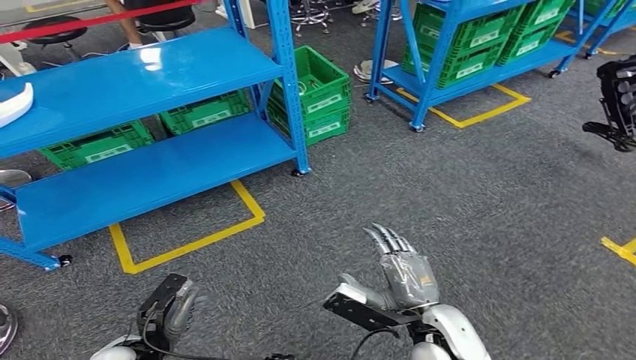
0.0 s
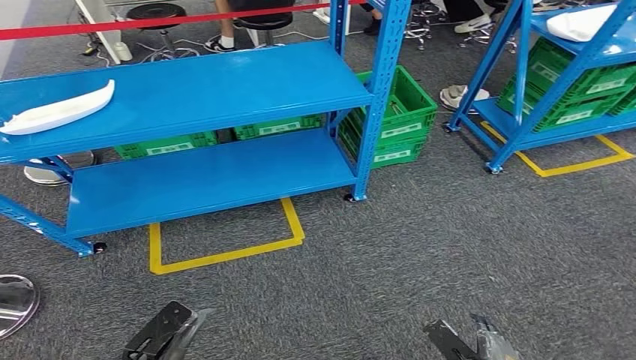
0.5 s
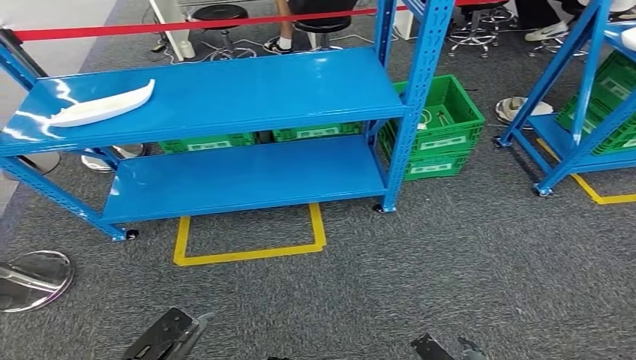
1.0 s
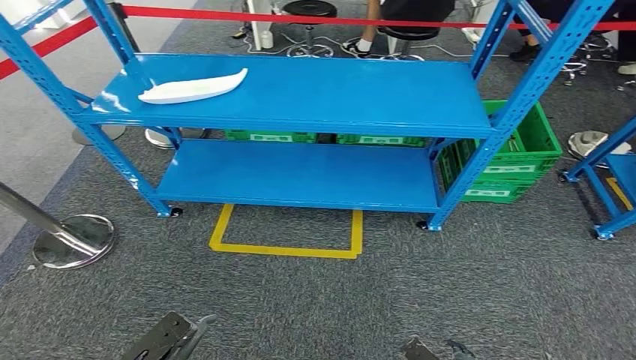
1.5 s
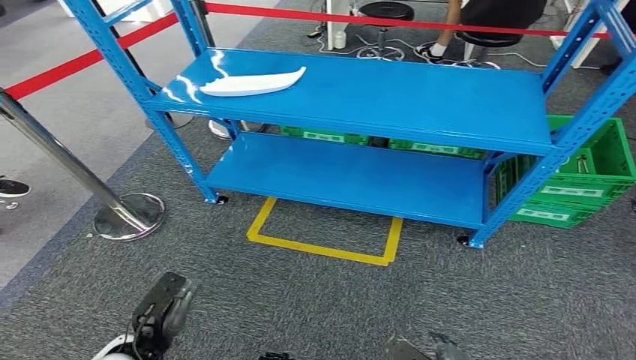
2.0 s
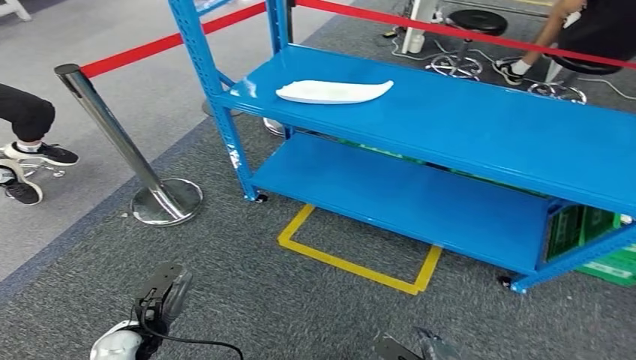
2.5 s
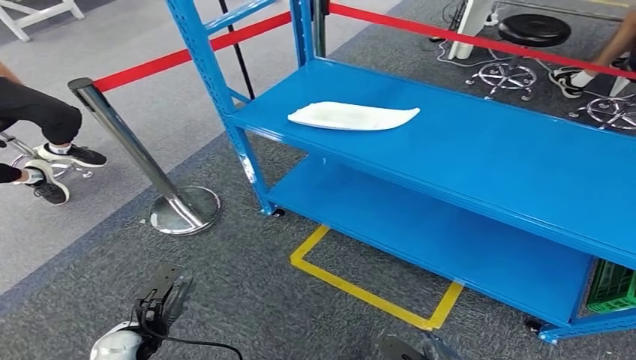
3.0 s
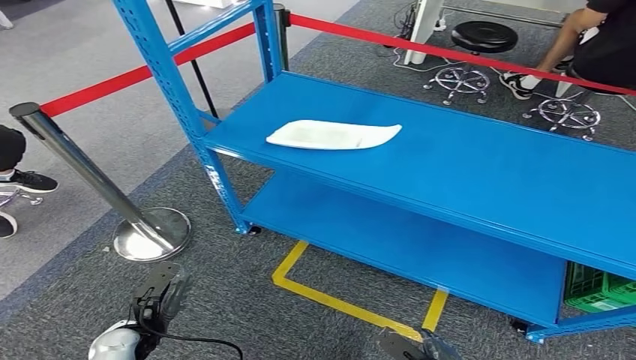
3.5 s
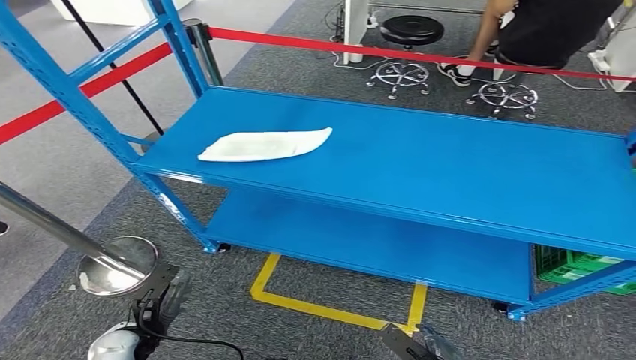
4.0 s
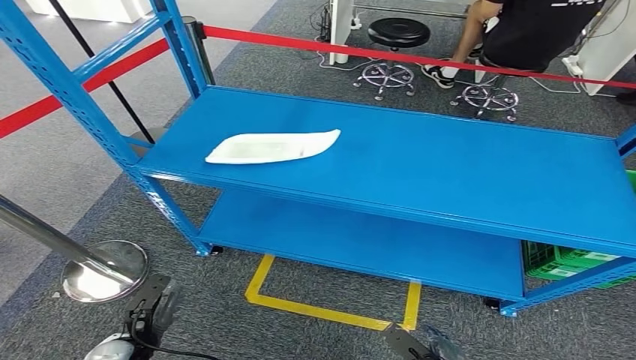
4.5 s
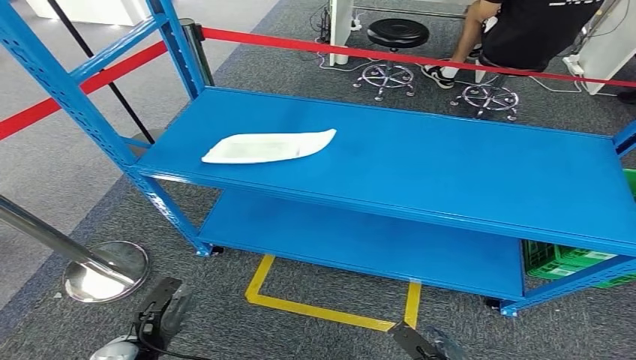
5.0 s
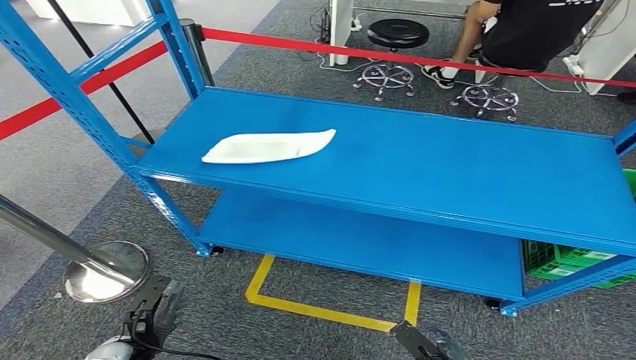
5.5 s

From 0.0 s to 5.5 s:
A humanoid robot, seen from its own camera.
Step, from 0.0 s to 5.5 s: Return to the initial position at the workbench.

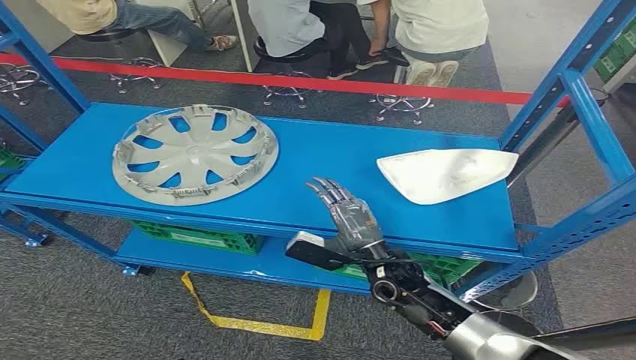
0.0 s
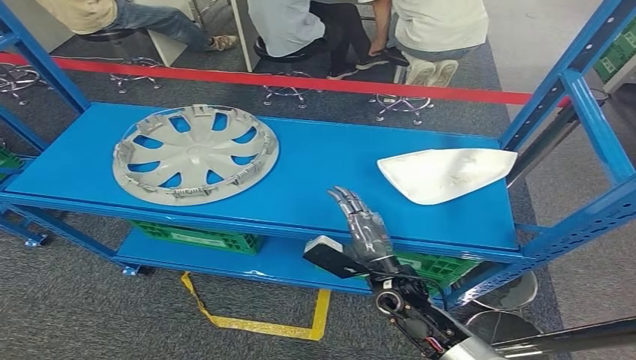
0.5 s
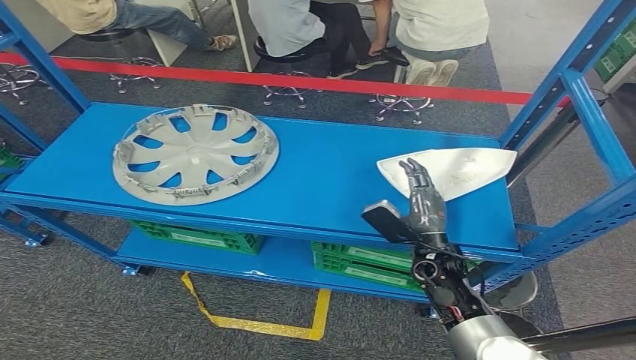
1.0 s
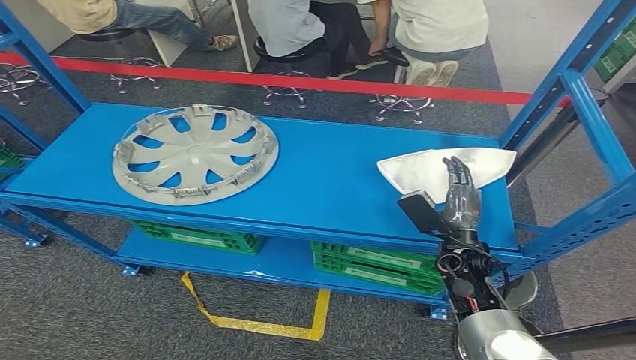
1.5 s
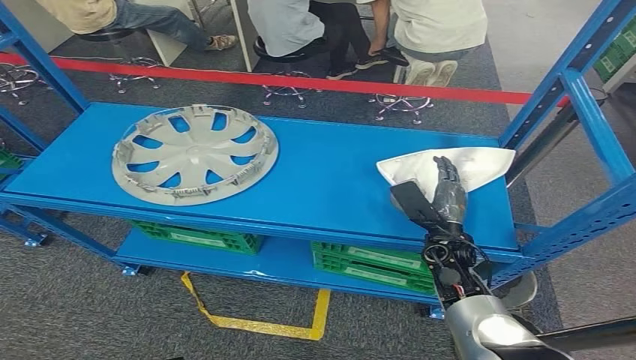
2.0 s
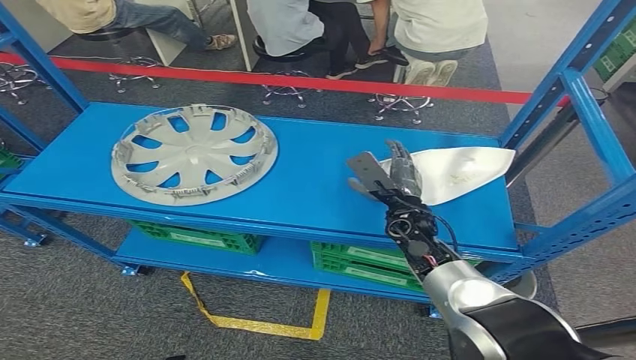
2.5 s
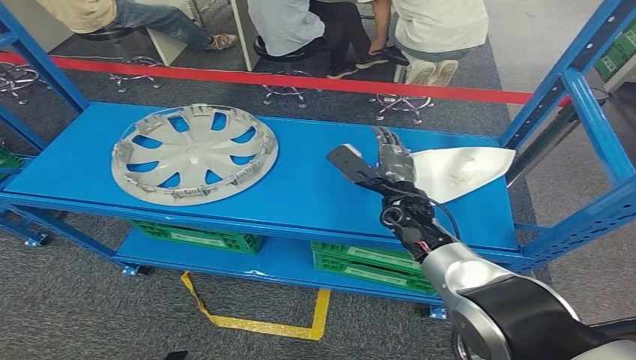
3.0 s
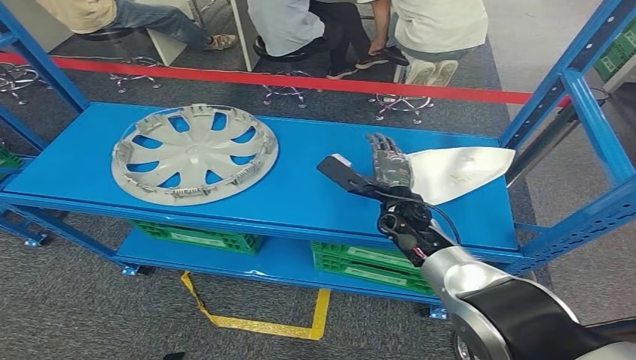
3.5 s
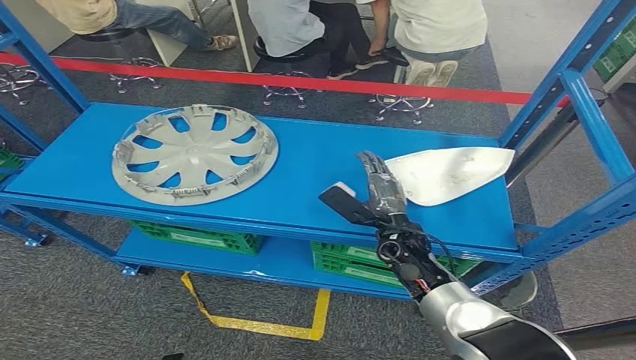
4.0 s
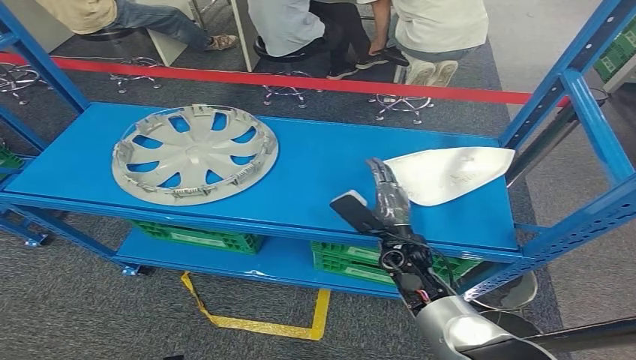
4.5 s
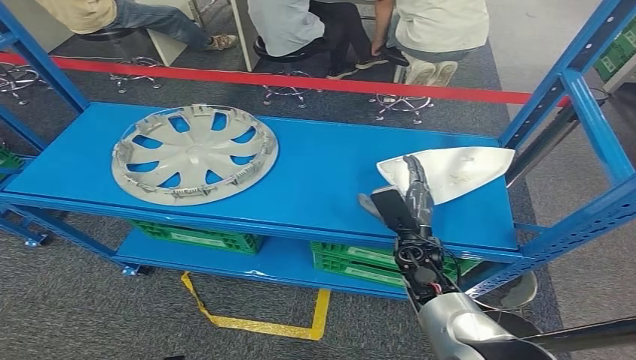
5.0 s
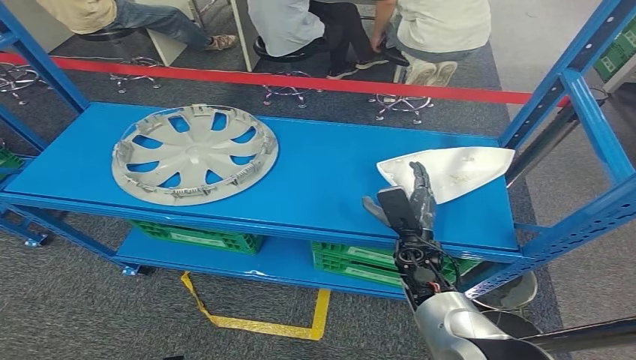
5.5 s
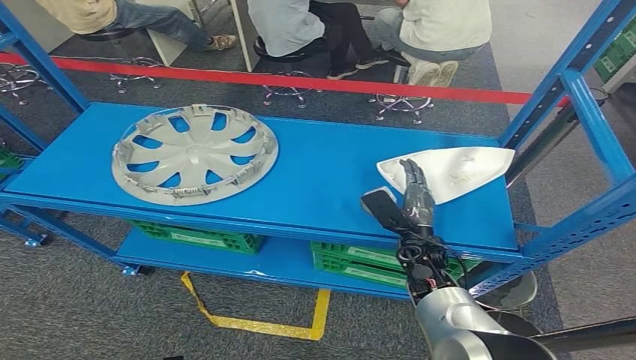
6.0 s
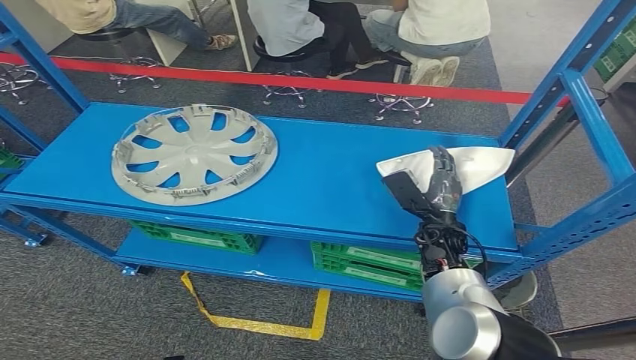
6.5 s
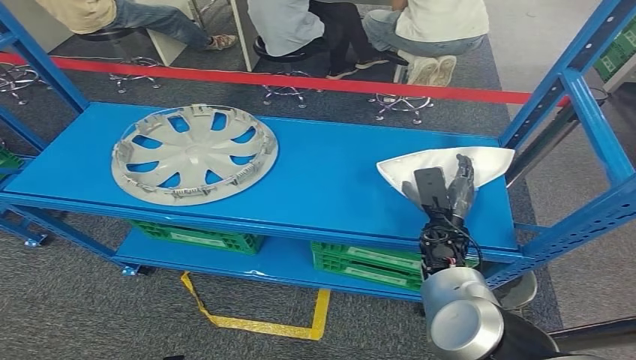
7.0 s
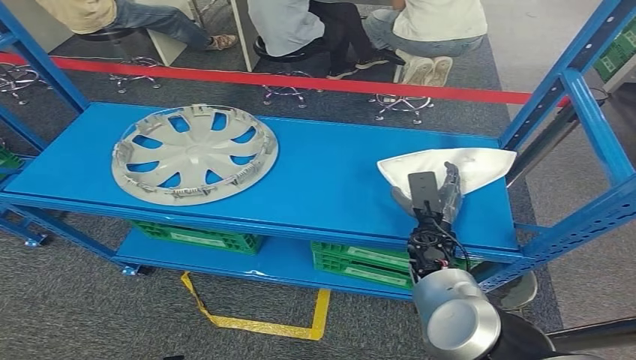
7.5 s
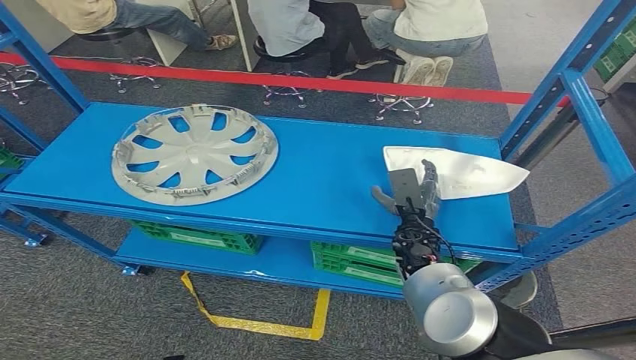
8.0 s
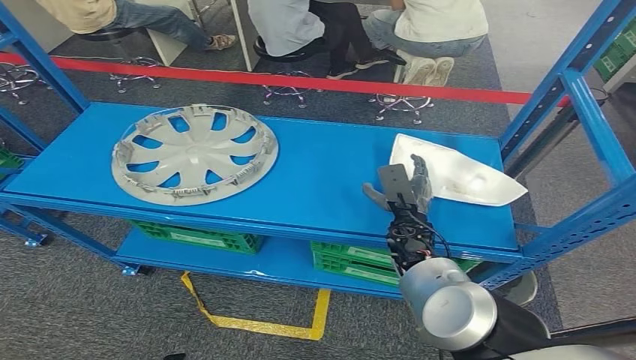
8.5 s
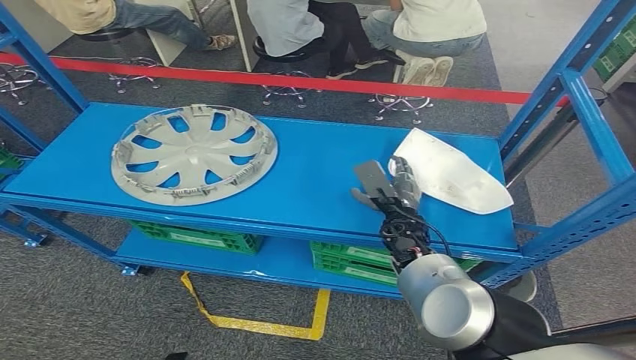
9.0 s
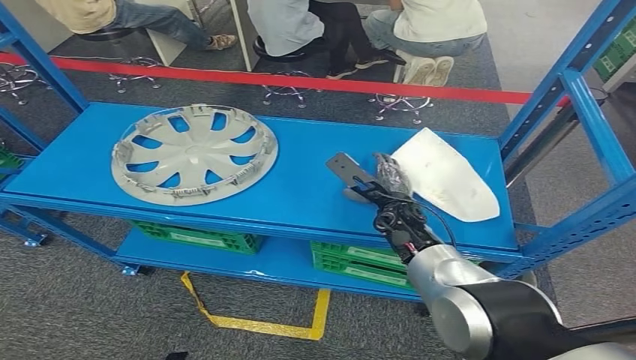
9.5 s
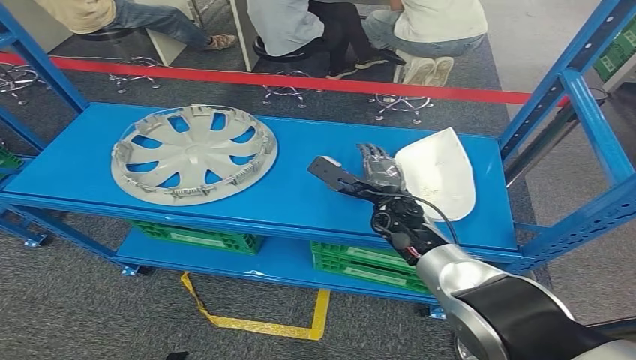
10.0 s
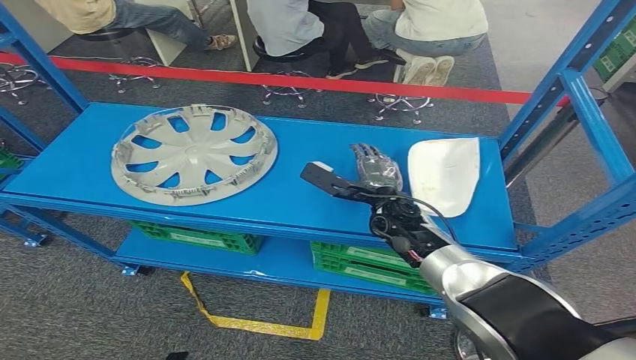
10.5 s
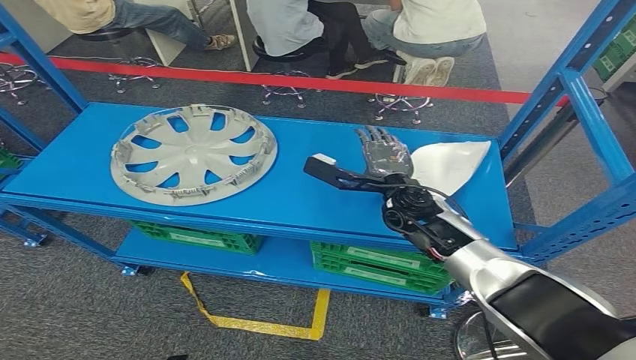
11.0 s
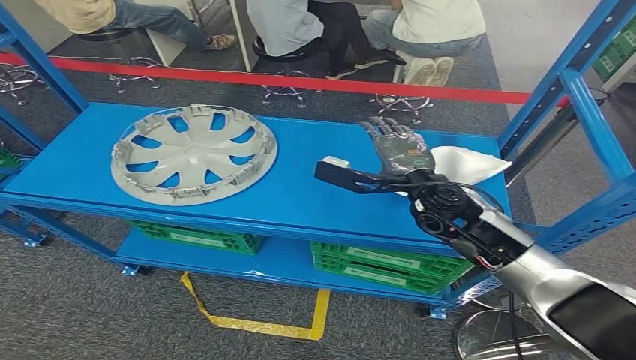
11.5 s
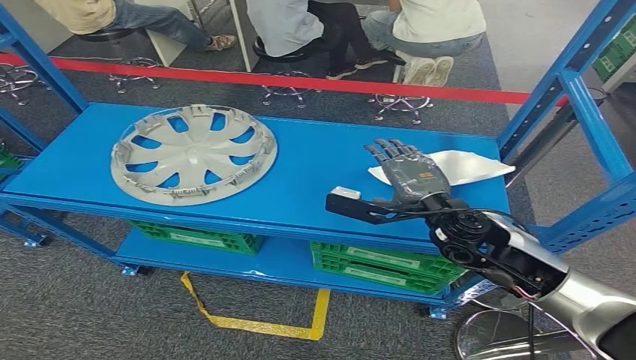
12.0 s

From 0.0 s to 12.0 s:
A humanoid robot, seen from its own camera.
From 2.0 s to 4.0 s: The right hand is displaced to the left by approximately 5 cm, and reaches roughly 10 cm forward, then returns.
From 4.0 s to 6.0 s: The right hand moves approximately 5 cm.
From 8.0 s to 10.0 s: The right hand is displaced upward by roughly 5 cm.
From 10.0 s to 12.0 s: The right hand goes roughly 15 cm backward, upward and to the right.

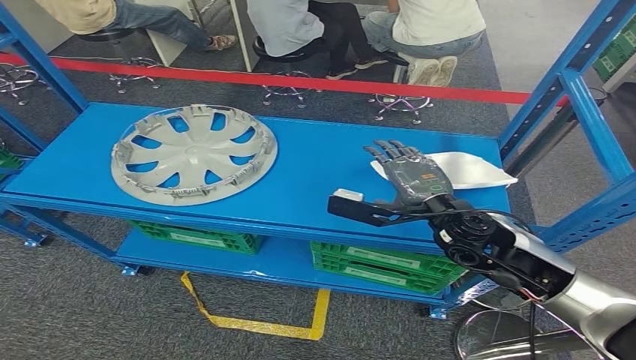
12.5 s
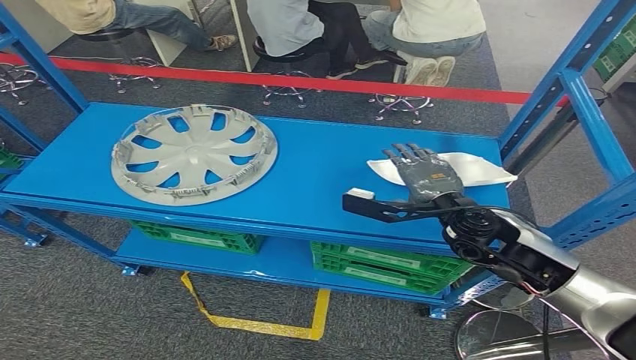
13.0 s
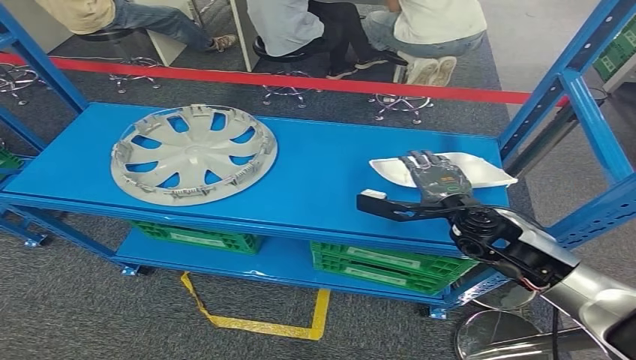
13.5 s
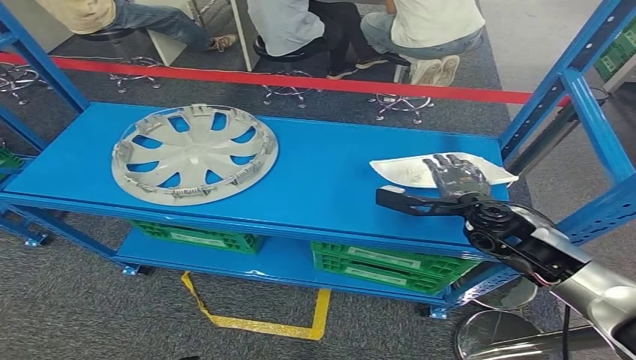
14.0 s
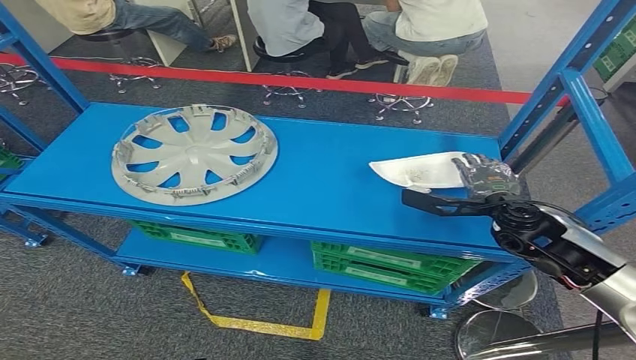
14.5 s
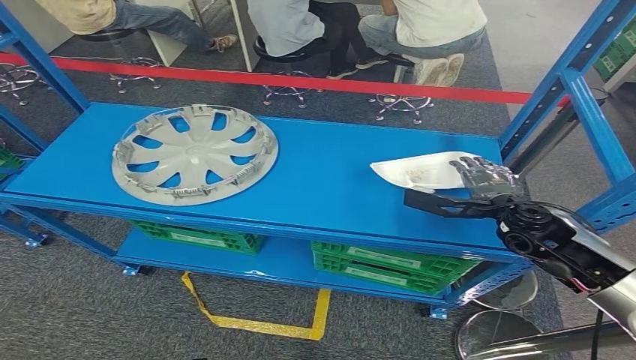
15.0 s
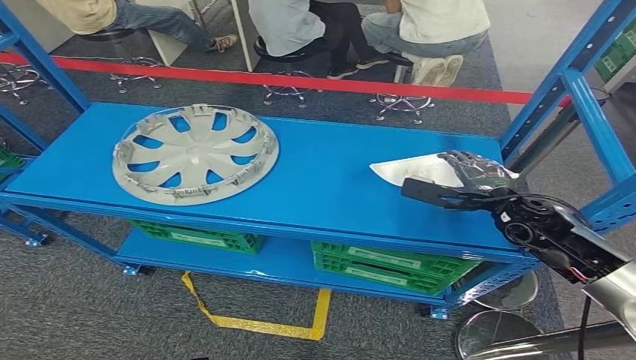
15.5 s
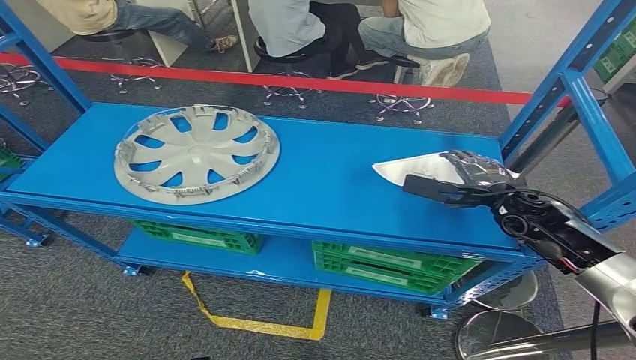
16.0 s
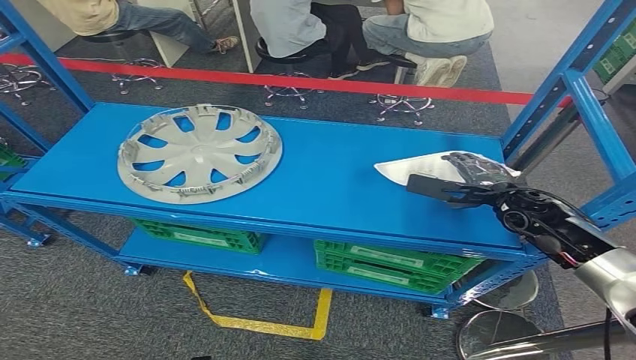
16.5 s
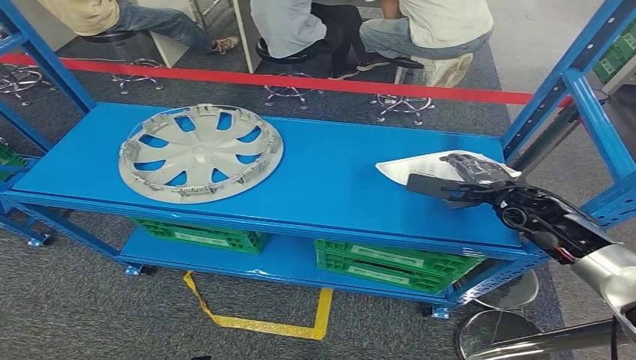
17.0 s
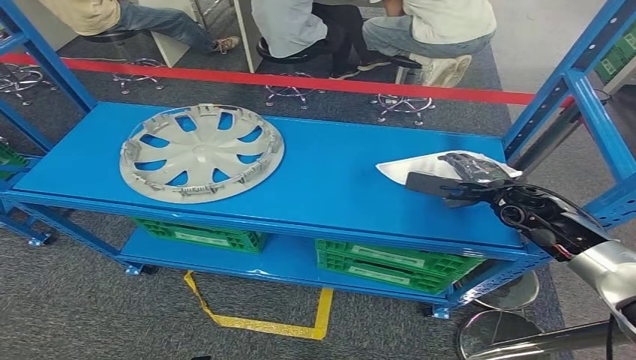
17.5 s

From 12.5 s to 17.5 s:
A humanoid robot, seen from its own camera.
From 12.5 s to 15.0 s: The right hand heads to the right, covering some 10 cm.
From 15.0 s to 17.5 s: The right hand travels forward by approximately 5 cm.
